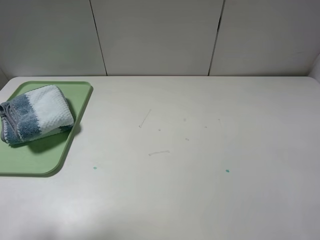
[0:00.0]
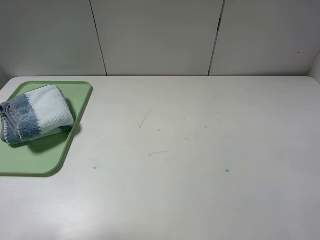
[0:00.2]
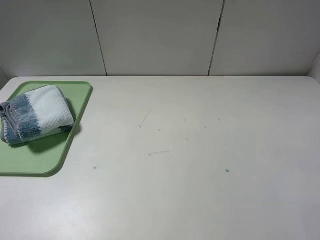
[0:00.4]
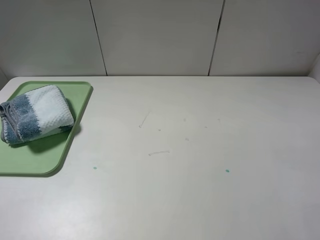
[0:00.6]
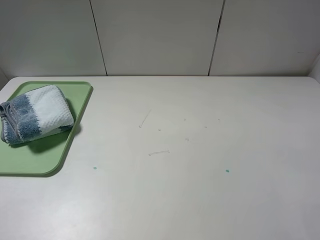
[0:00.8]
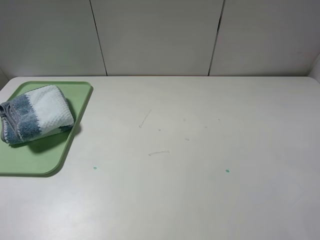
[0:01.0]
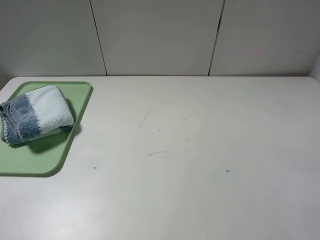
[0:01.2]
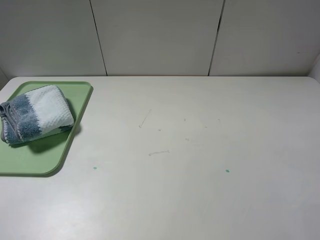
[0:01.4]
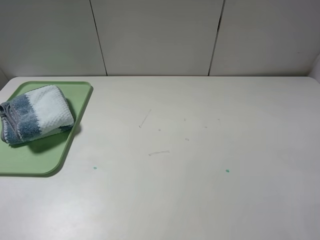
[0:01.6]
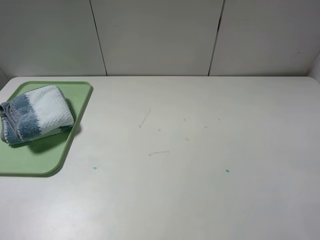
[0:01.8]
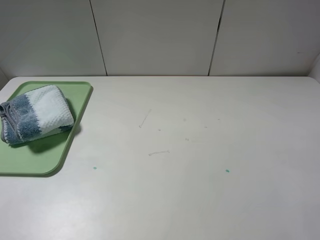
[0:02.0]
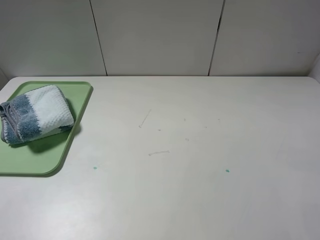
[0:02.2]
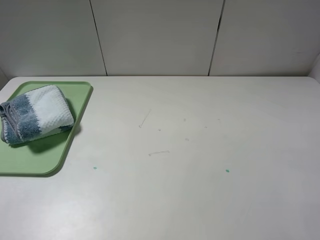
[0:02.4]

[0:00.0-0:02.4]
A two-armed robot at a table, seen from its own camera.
0:00.0 to 0:01.2: The left gripper moves backward and downward, roughly 15 cm.
0:01.2 to 0:02.4: Both grippers stay put.
